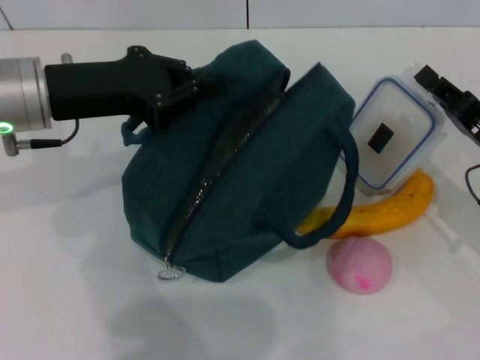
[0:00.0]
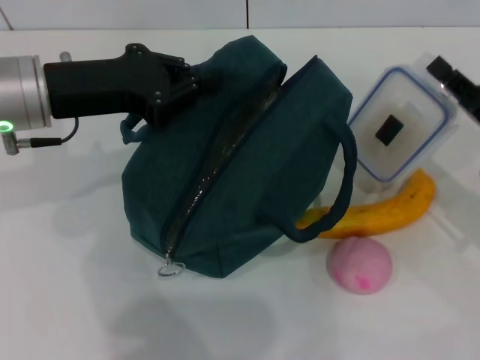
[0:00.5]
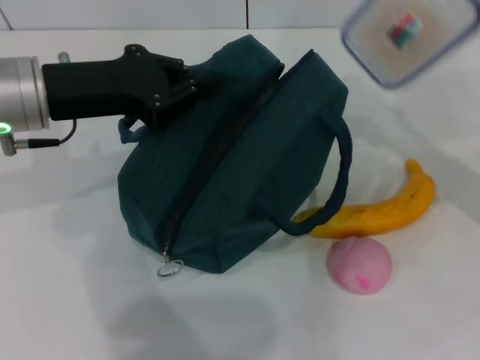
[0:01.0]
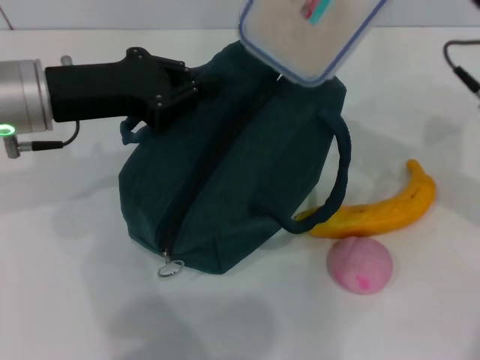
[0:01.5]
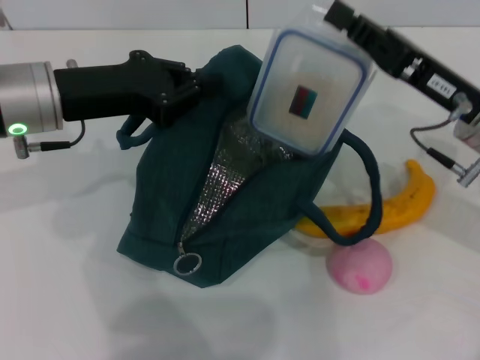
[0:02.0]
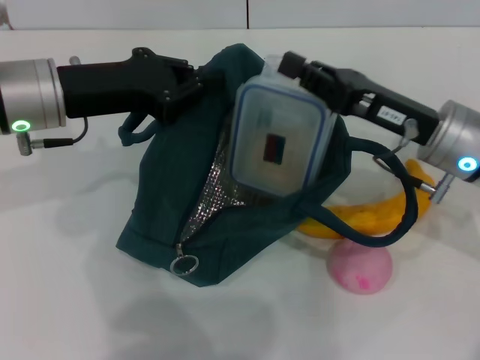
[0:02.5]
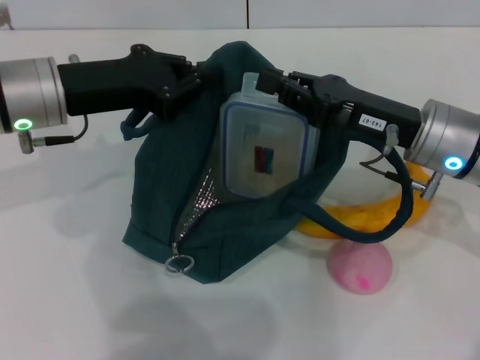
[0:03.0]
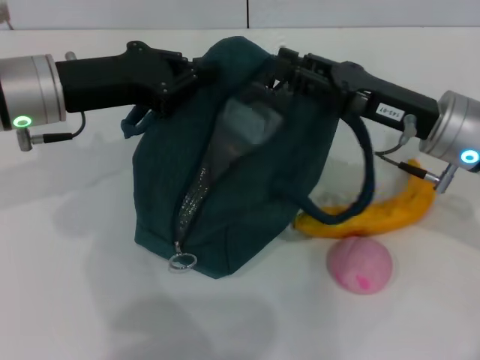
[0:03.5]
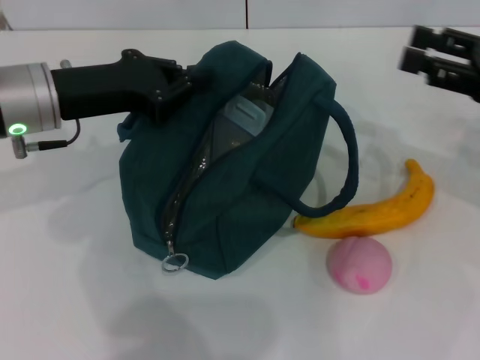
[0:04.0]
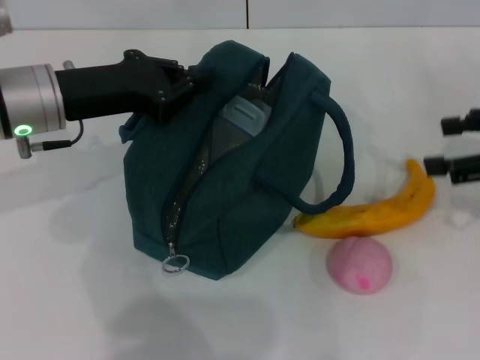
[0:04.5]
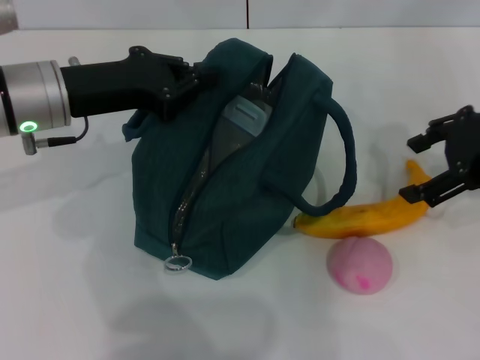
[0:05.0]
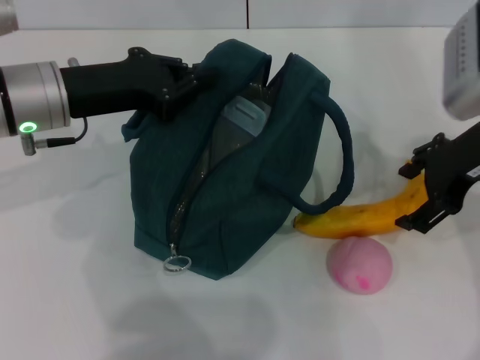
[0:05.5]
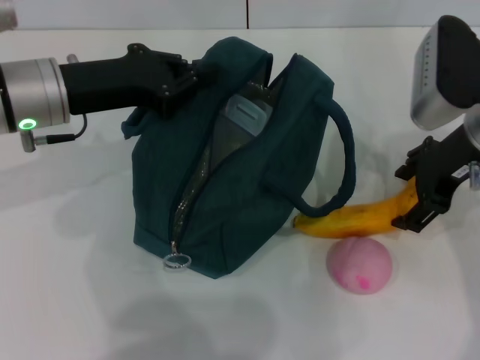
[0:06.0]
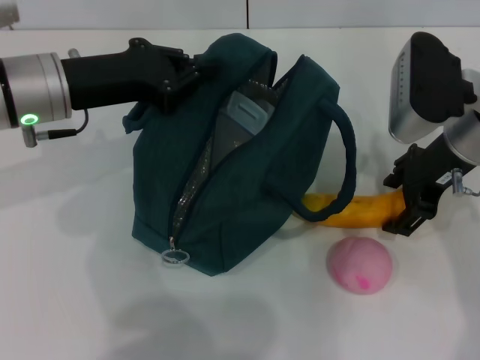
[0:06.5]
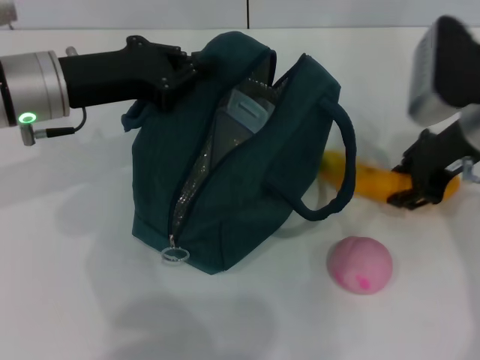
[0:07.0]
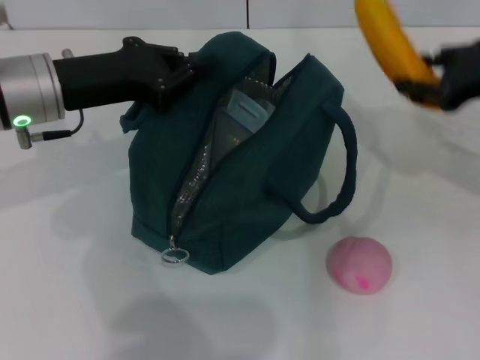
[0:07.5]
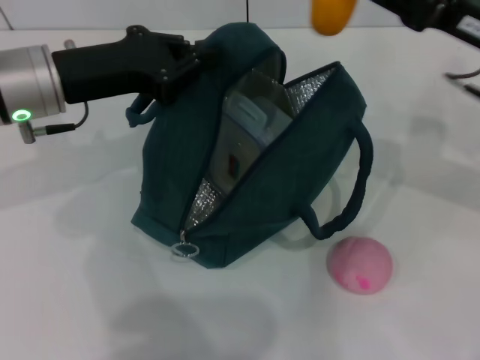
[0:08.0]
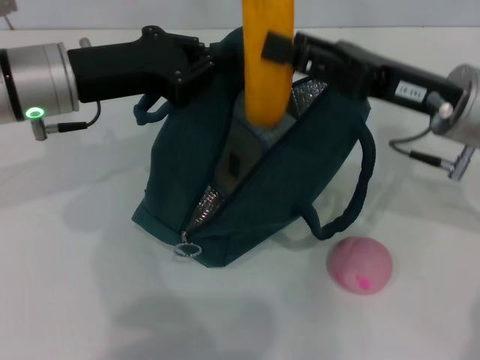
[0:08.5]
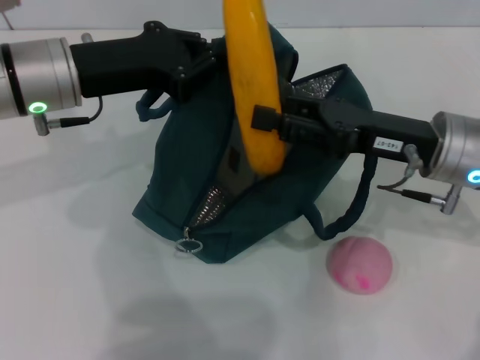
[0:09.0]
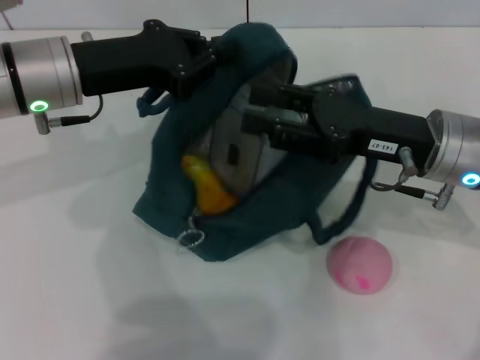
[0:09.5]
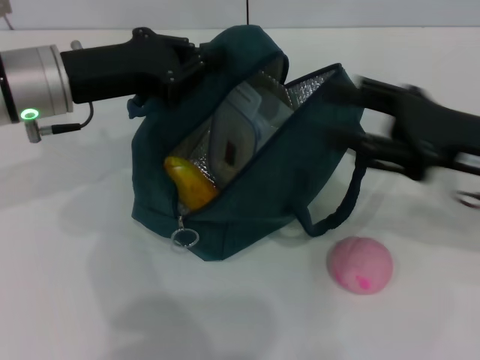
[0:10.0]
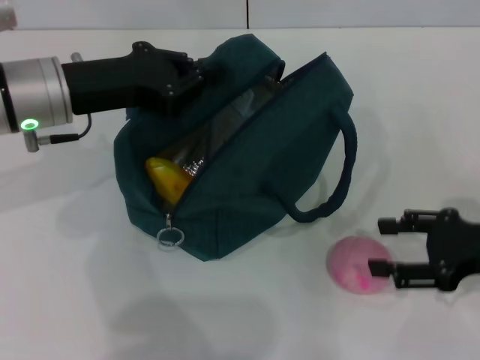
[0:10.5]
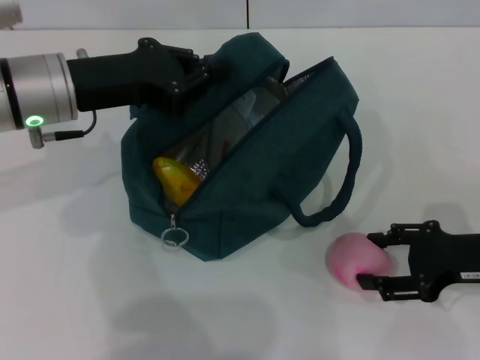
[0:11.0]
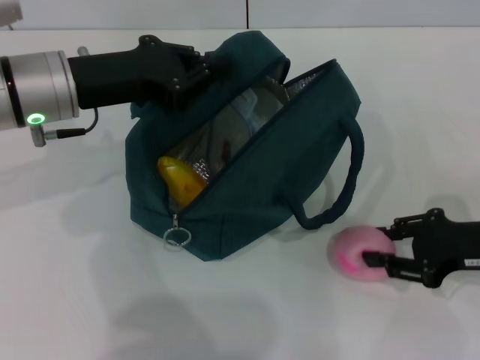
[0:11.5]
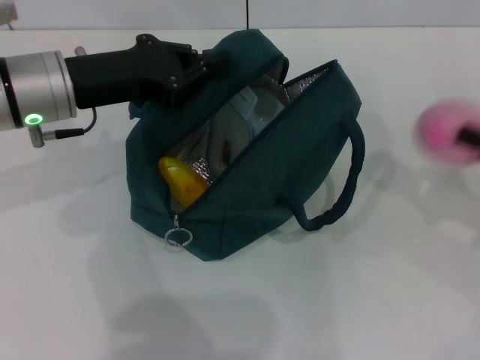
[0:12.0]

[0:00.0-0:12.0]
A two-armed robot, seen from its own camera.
Step, 0:00.0 to 0:03.5: Place the lunch box into the lunch bag with your right hand.
Step, 0:04.0 to 0:06.5: Take the banana with your right hand.
Step, 0:07.0 to 0:09.5: Put the banana into the lunch bag with your right hand.
Step, 0:10.0 to 0:11.5: Grab the peach with your right hand.
0:00.0 to 0:02.0: The right gripper heads upward and to the left, covering about 10 cm.
0:02.0 to 0:04.0: The right gripper heads to the right, covering about 10 cm, and opens.
0:04.0 to 0:06.0: The right gripper goes some 10 cm to the left.
0:06.0 to 0:08.0: The right gripper reaches approximately 5 cm to the right, then returns, and closes its fingers.
0:08.0 to 0:10.0: The right gripper is displaced backward by about 5 cm.
0:10.0 to 0:12.0: The right gripper moves to the right, roughly 10 cm, and closes.

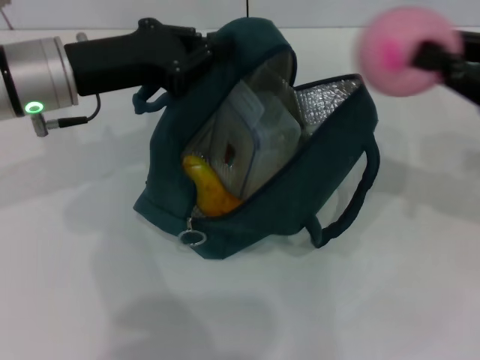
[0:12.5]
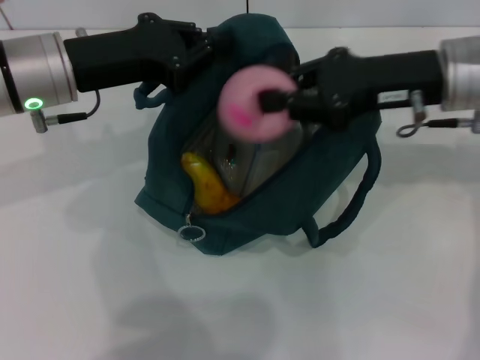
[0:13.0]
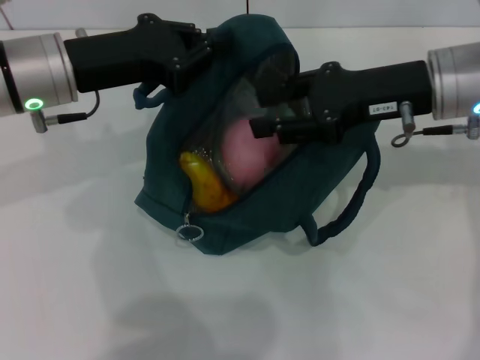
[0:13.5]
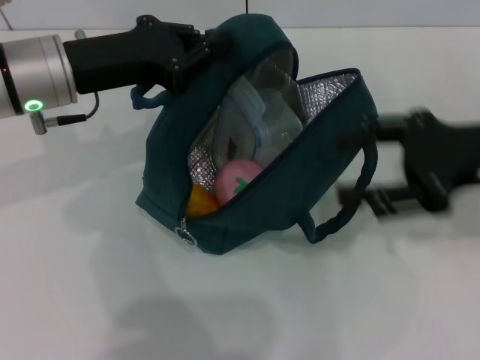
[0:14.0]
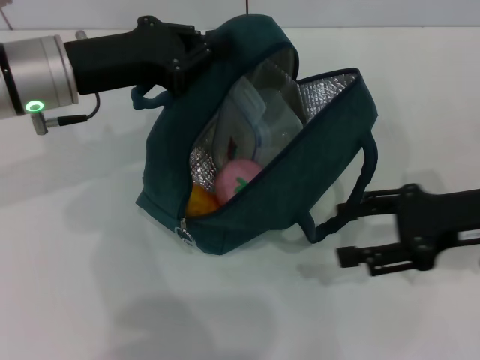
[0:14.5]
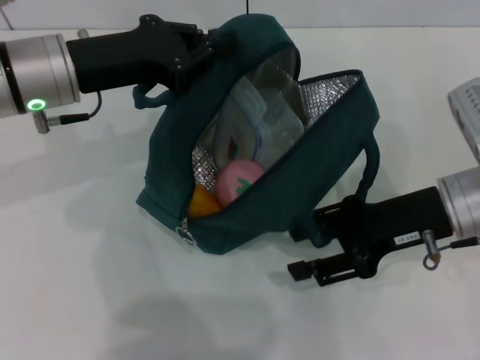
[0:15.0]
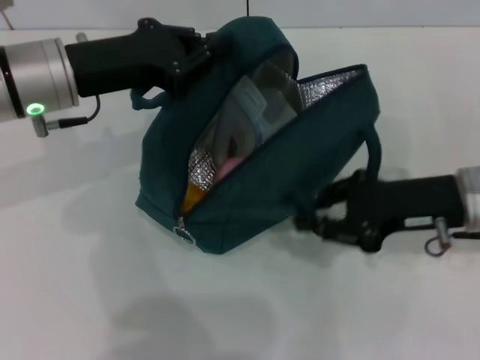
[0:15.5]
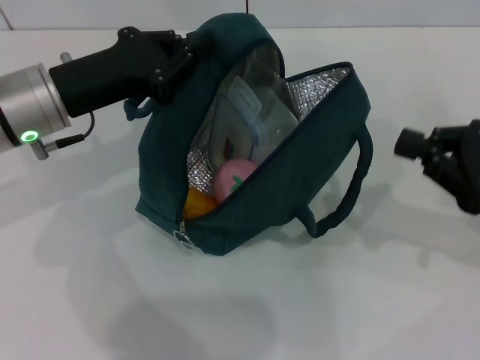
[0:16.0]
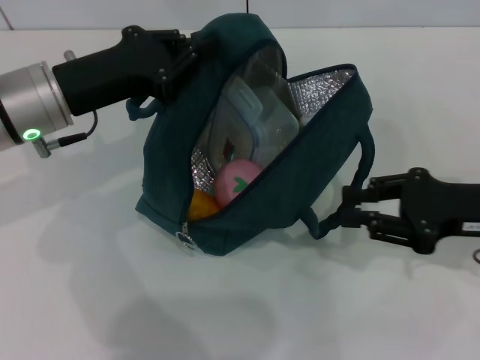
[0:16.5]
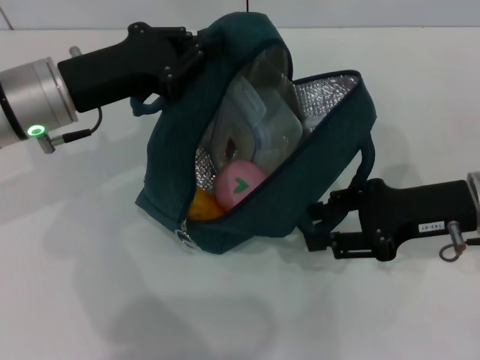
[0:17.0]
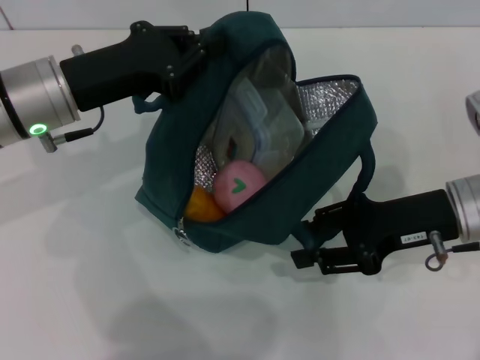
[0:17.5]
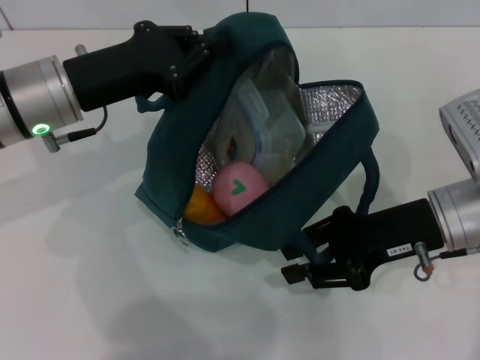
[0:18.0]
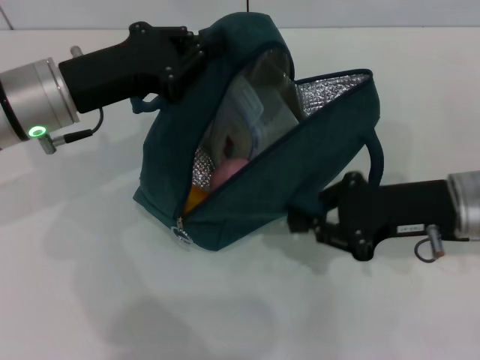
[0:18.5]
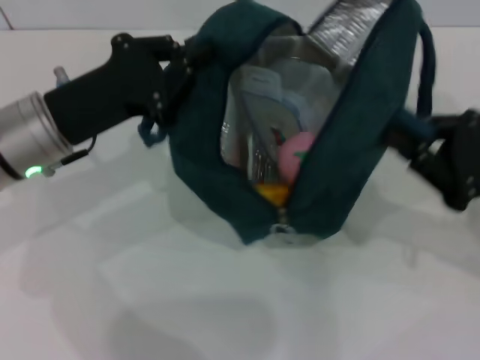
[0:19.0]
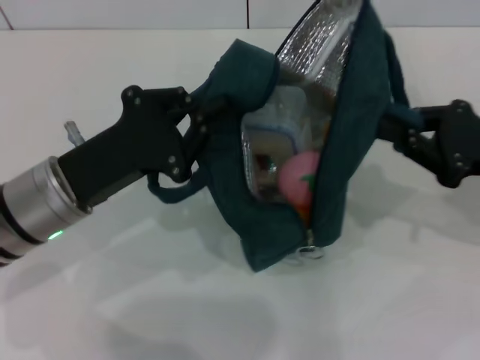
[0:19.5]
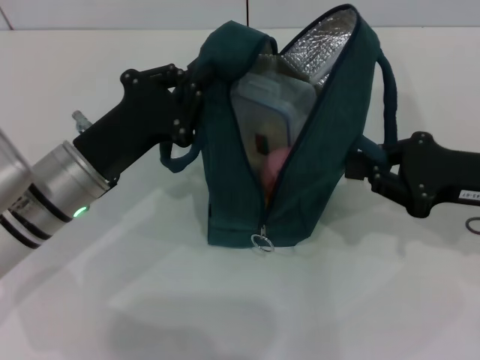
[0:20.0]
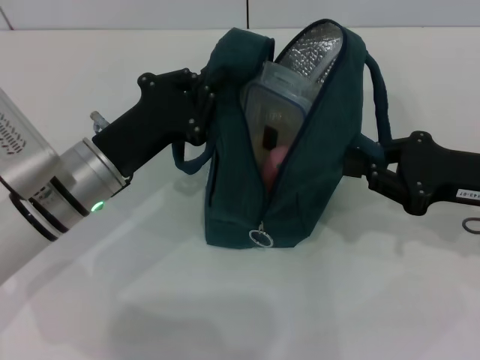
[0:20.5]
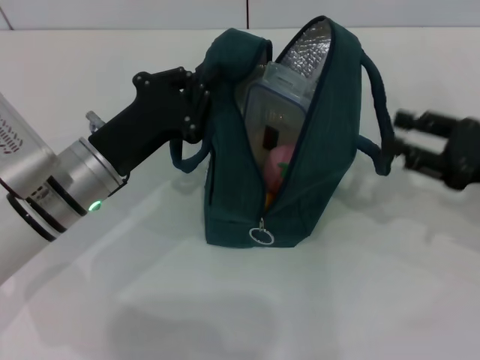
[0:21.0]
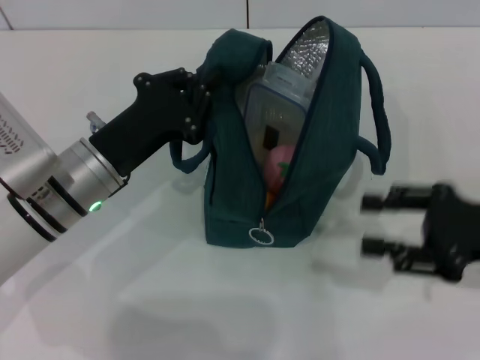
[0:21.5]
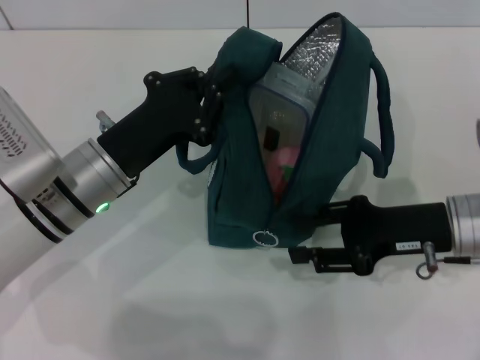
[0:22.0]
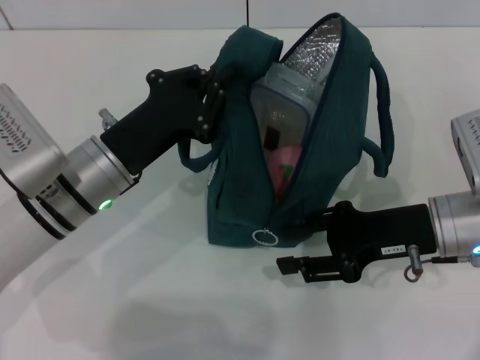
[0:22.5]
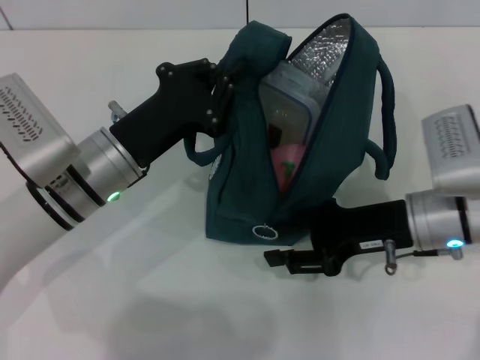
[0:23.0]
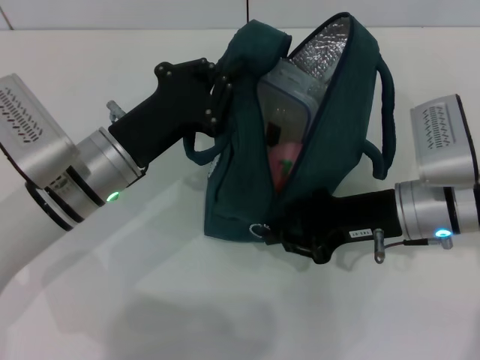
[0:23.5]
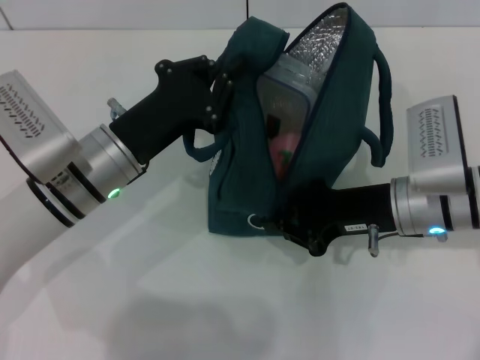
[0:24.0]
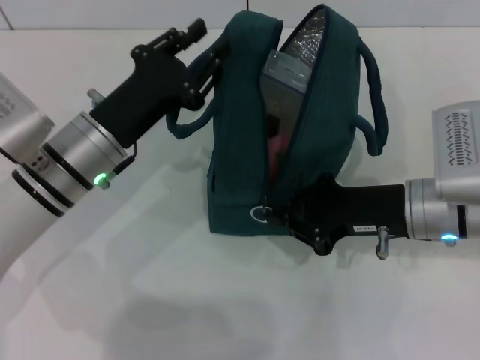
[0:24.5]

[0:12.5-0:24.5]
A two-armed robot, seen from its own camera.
Step, 0:14.0 to 0:21.0: Hold the lunch bag with your right hand.
0:12.5 to 0:14.5: The right gripper is displaced downward by roughly 5 cm, goes to the left and returns, about 10 cm each way, and opens up.
0:14.5 to 0:16.5: The right gripper reaches about 5 cm to the left, then returns, and closes up.
0:16.5 to 0:18.5: The right gripper is displaced to the left by about 5 cm, and opens, then closes again.
0:18.5 to 0:20.5: The right gripper goes some 5 cm to the right. Meanwhile the left gripper goes about 10 cm downward.
0:20.5 to 0:22.5: The right gripper travels to the left by approximately 5 cm, and opens its fingers.
0:22.5 to 0:24.5: The right gripper closes up.

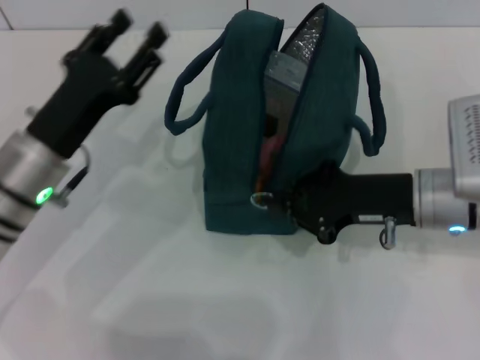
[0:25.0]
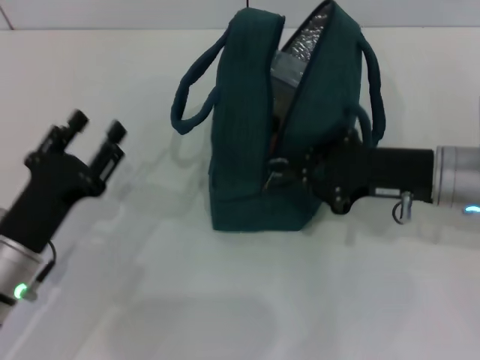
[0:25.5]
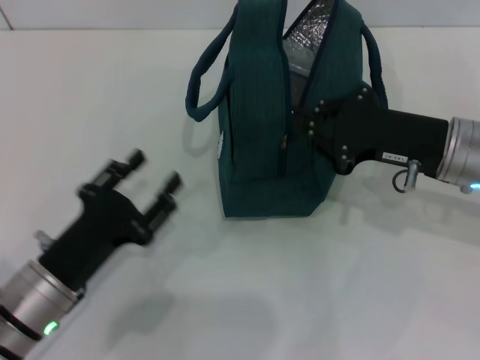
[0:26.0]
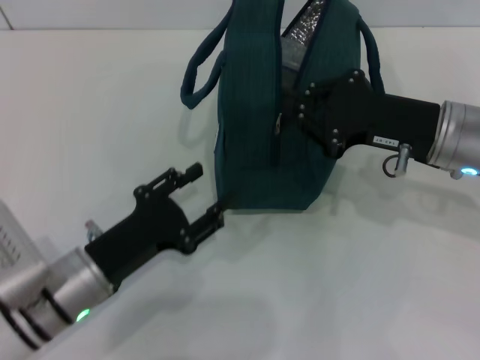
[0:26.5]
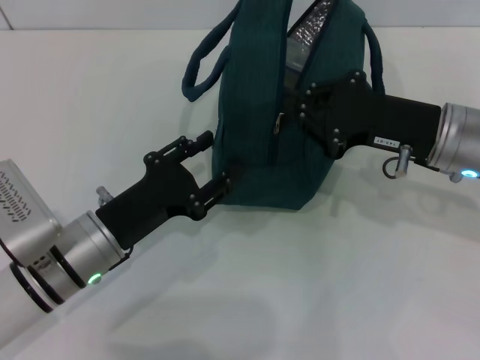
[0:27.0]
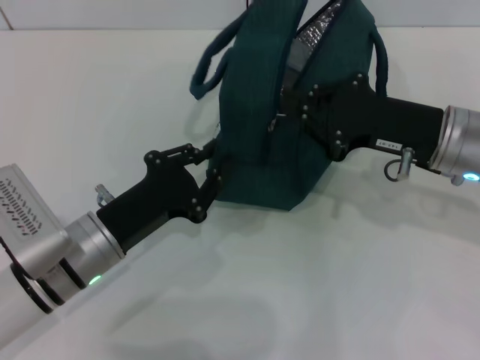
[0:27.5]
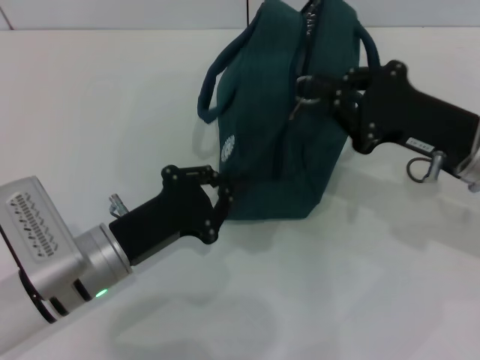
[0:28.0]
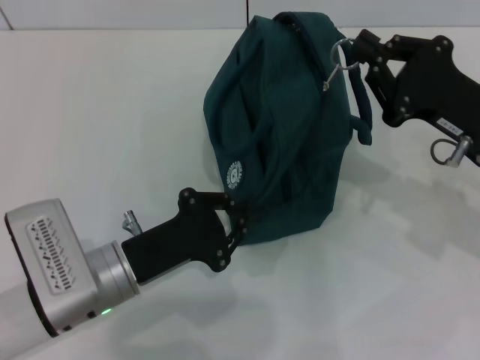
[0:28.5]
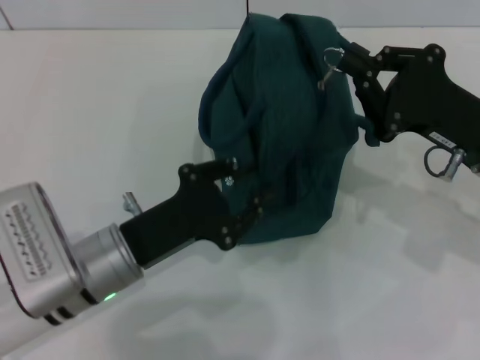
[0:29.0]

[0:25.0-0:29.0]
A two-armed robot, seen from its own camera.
0:27.0 to 0:29.0: The left gripper closes its fingers.
